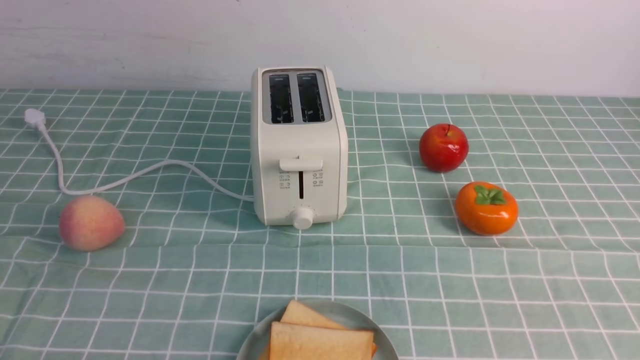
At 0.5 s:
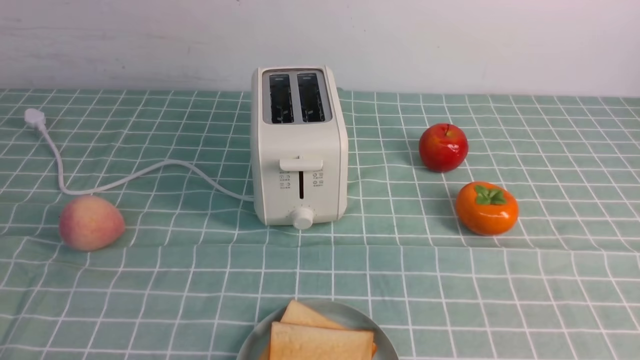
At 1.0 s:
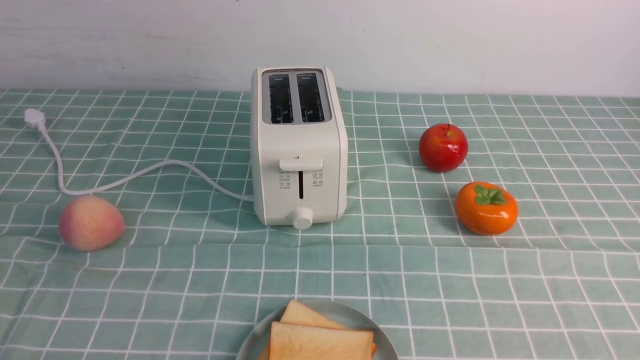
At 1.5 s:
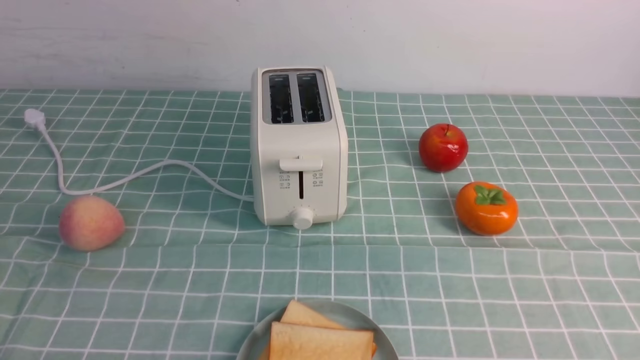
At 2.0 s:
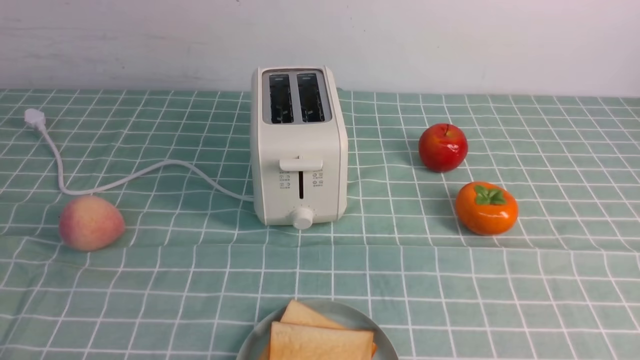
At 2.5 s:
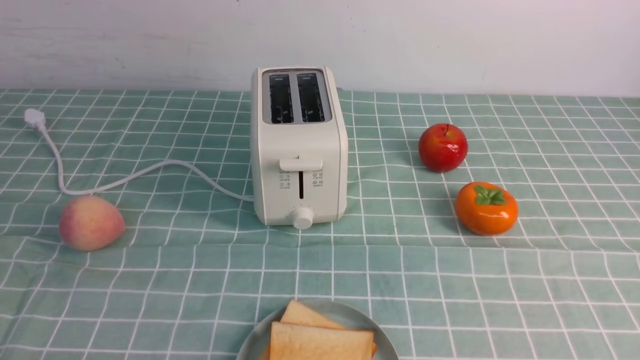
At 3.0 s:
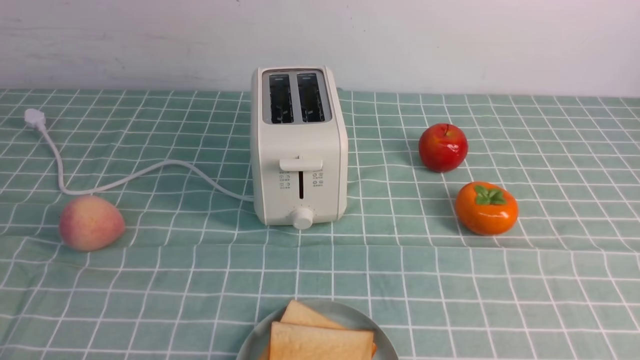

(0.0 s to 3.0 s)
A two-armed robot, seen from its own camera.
Task of the whole recording: take toasted bread from bread machine on blue coffee table place on plate.
1.5 s - 3.0 s: The two grippers keep their place.
